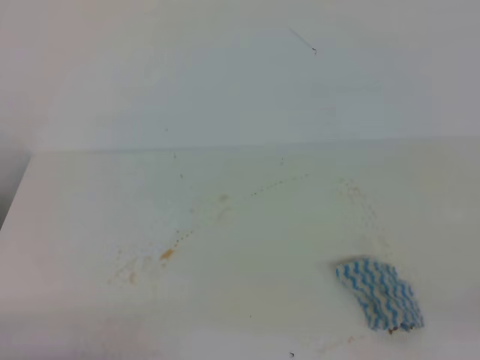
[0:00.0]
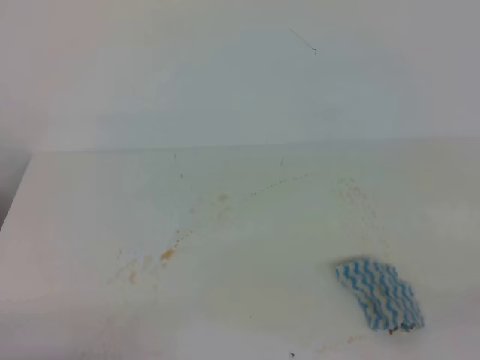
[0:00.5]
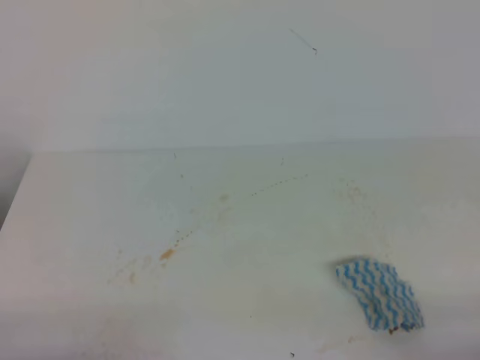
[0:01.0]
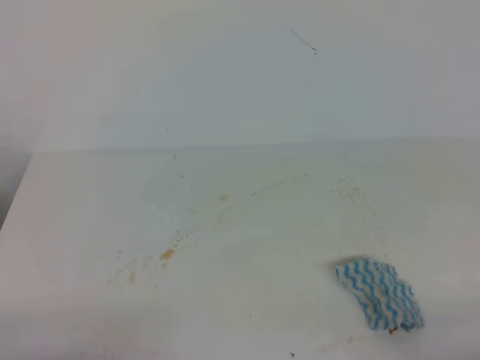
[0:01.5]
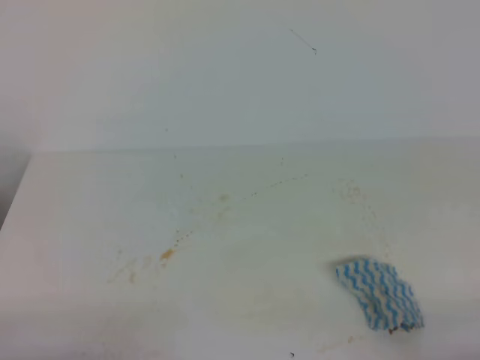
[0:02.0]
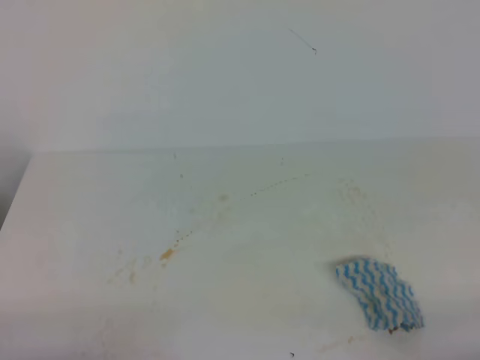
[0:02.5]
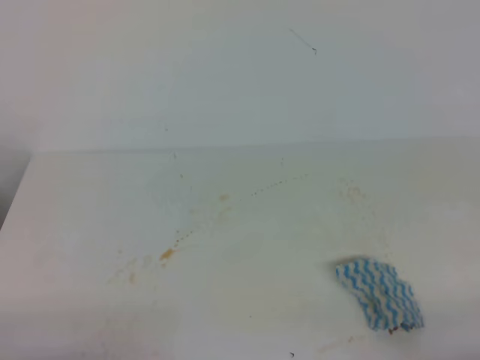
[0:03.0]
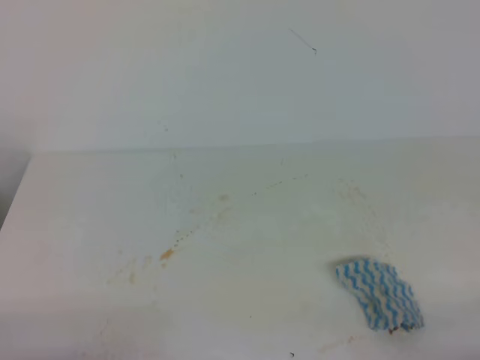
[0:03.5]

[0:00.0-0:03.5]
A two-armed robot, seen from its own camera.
0:02.0 to 0:03.5: Neither gripper changes place.
